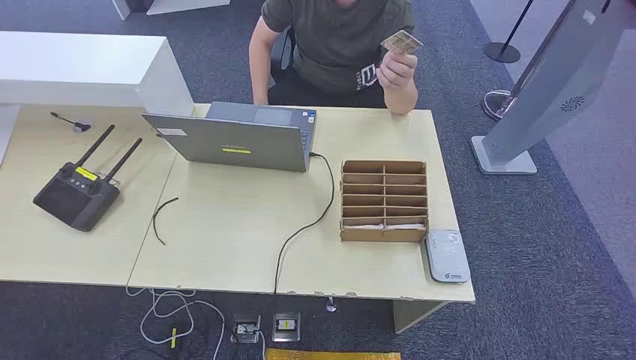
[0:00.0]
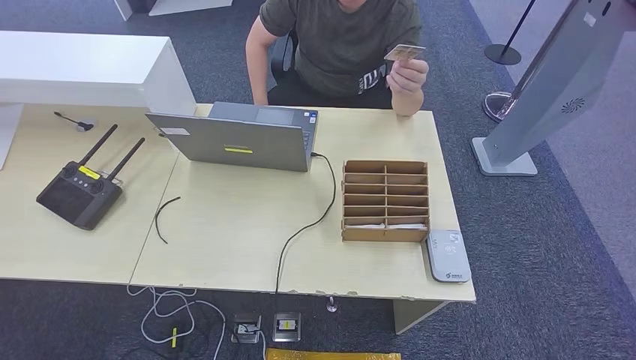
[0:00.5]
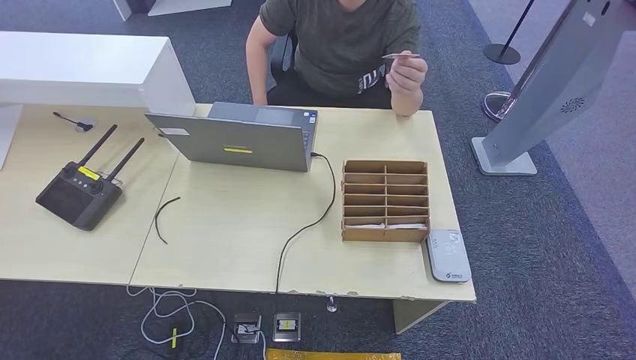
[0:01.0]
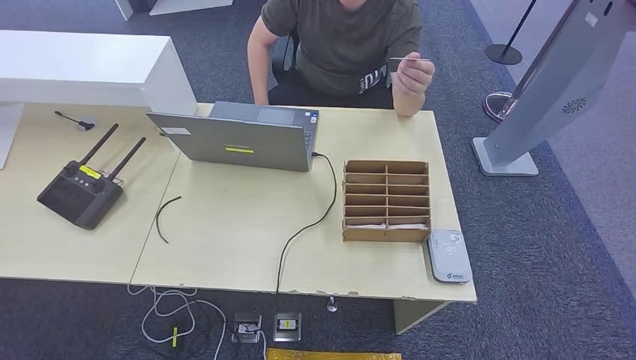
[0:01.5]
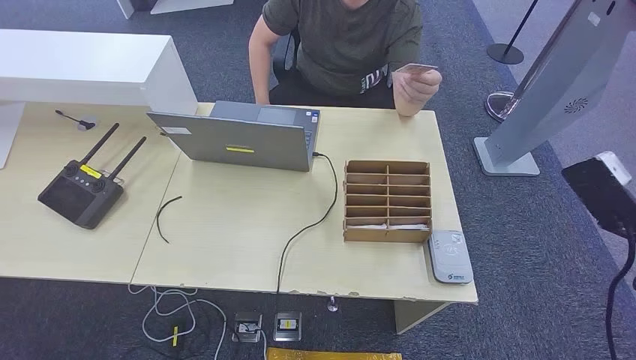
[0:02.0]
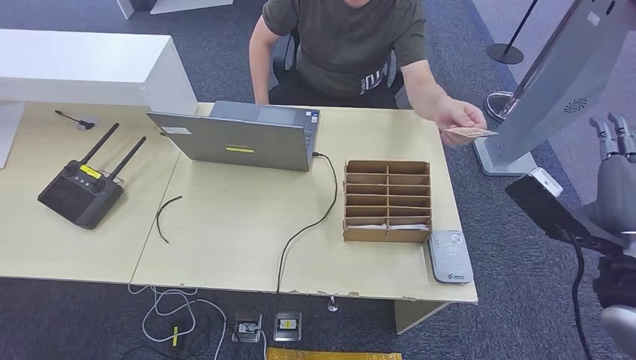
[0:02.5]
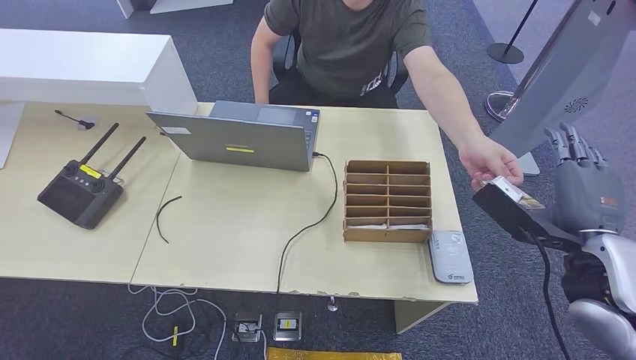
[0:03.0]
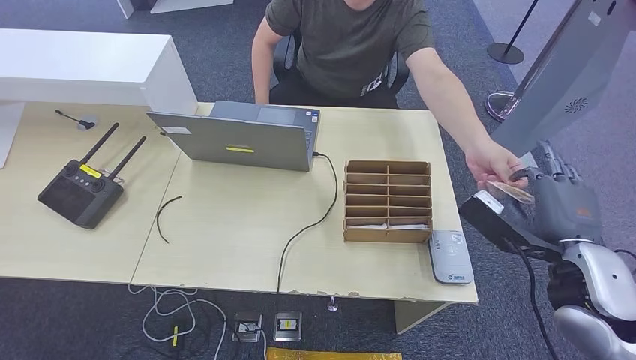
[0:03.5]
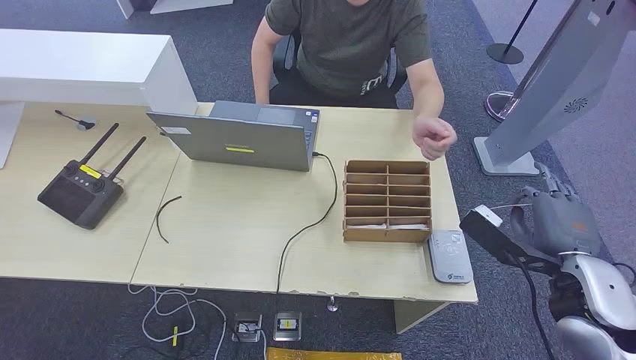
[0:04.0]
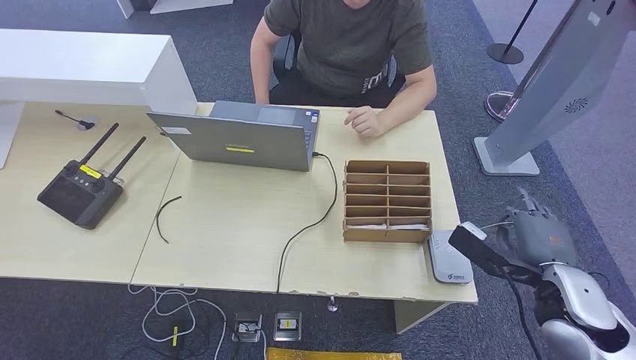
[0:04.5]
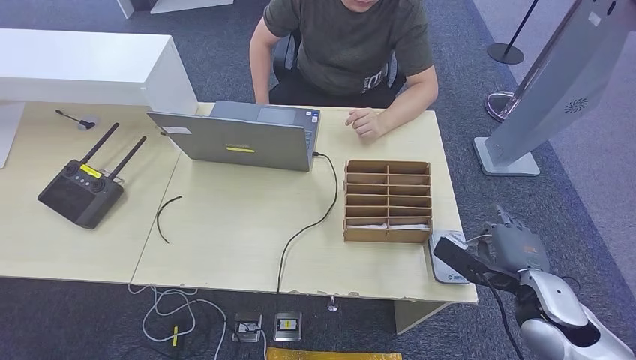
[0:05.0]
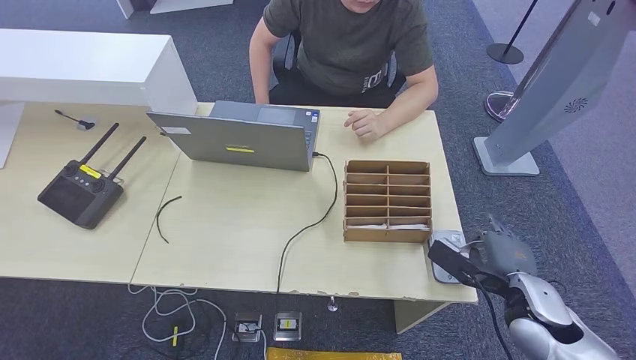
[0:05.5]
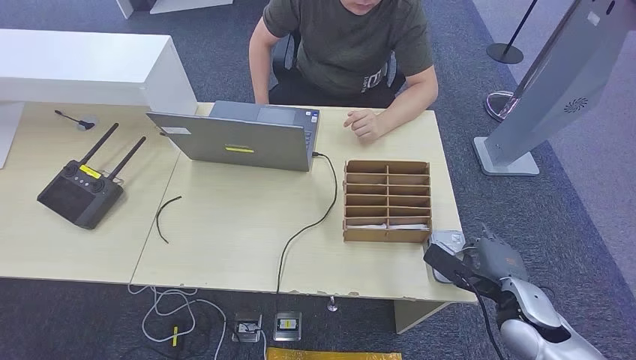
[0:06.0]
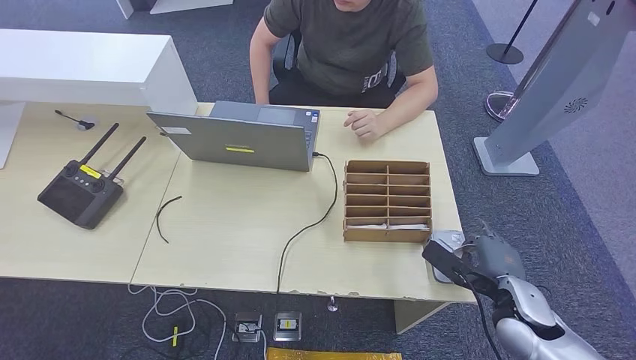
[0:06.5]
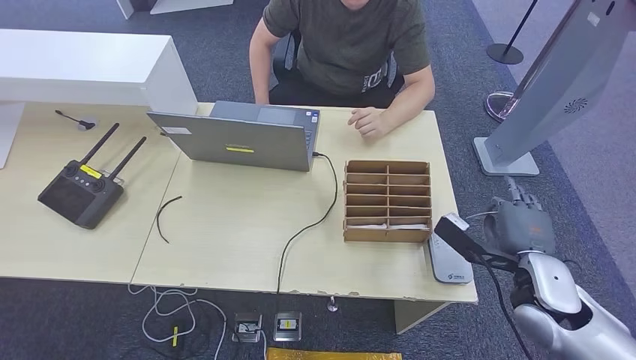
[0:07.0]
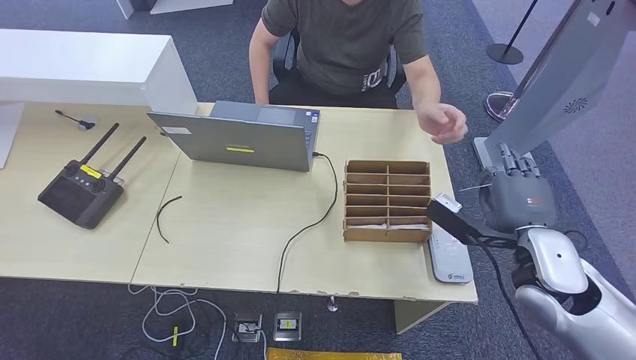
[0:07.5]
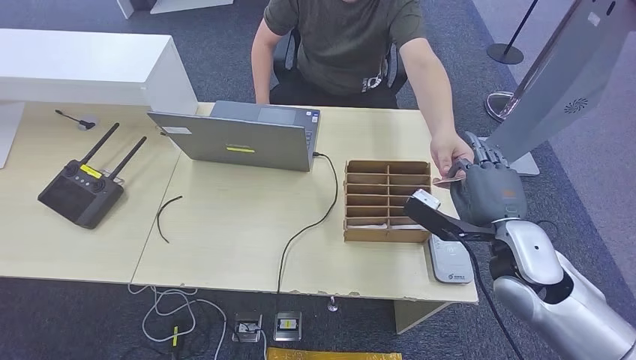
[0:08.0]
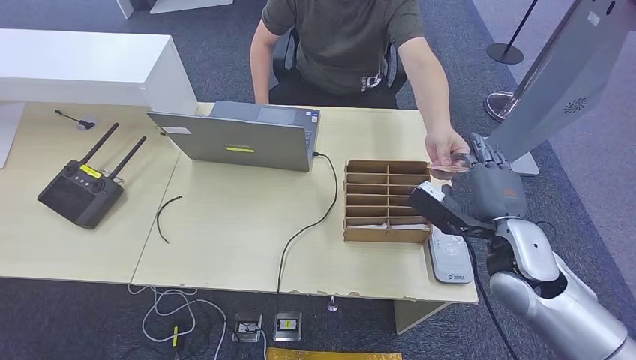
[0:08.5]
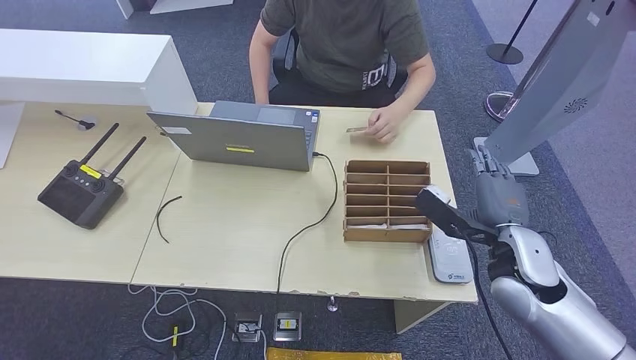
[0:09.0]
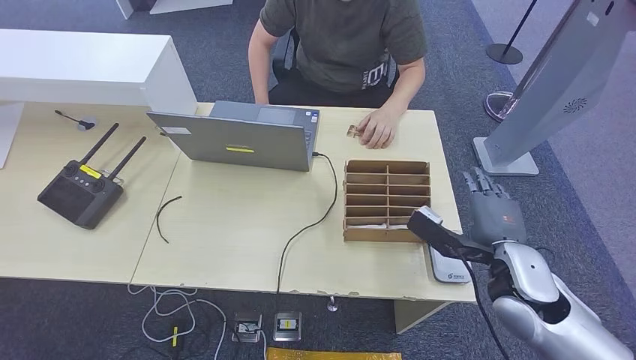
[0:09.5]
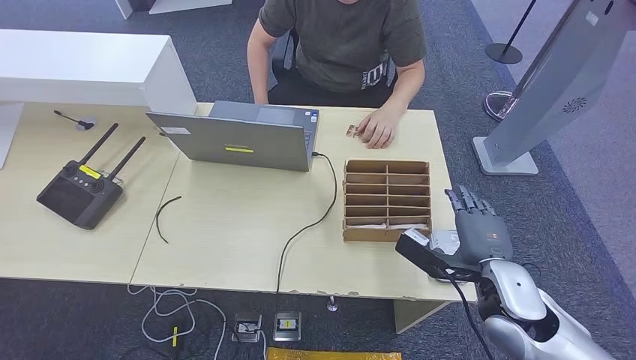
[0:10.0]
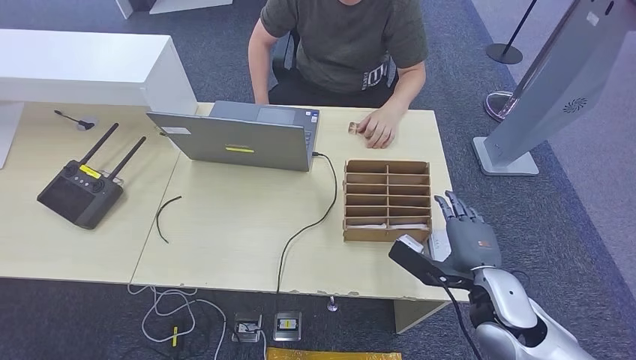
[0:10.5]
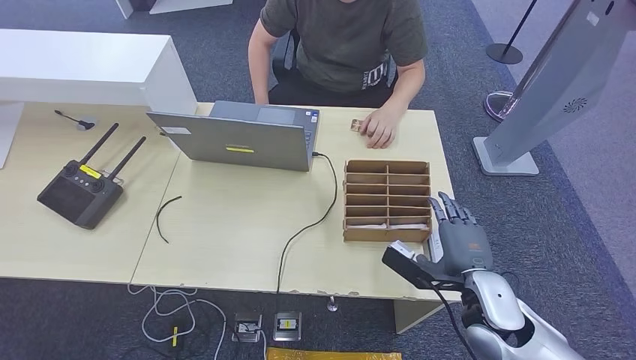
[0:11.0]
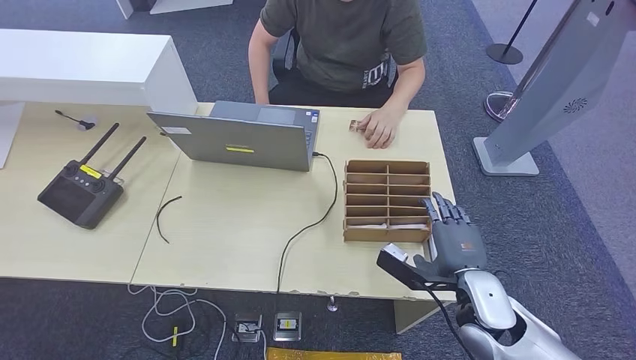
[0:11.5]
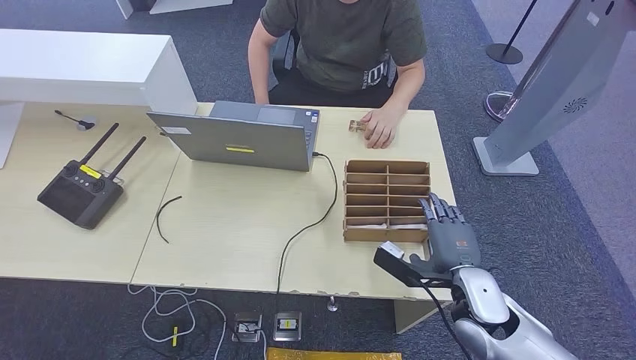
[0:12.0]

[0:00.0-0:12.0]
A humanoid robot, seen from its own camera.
Step, 0:00.0 to 0:03.5: Take the ID card from the person's hand.
Step, 0:04.0 to 0:05.5: Place the ID card on the card reader.
Step, 0:06.0 to 0:09.0: Hand the ID card to the person.
0:02.0 to 0:04.0: The right hand moves downward and to the left, some 10 cm.
0:04.0 to 0:06.0: The right hand is displaced downward by about 10 cm.
0:06.0 to 0:08.0: The right hand heads upward and to the left, covering roughly 10 cm.
0:08.0 to 0:10.0: The right hand moves some 5 cm.
0:10.0 to 0:12.0: The right hand shifts by about 5 cm.

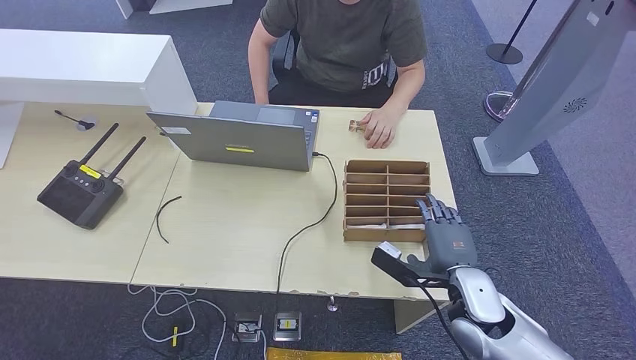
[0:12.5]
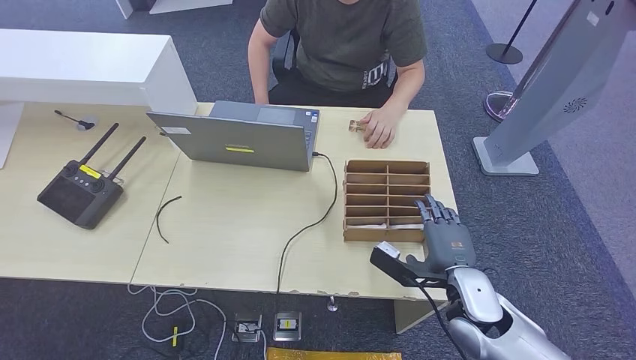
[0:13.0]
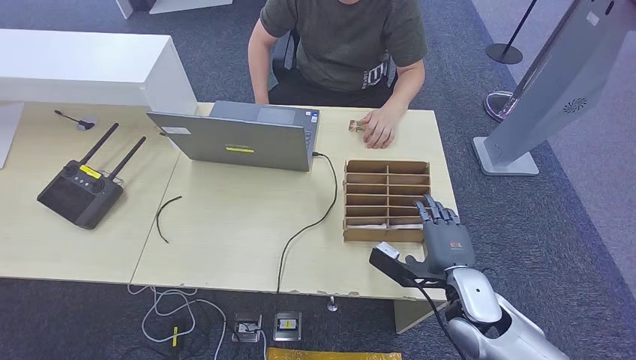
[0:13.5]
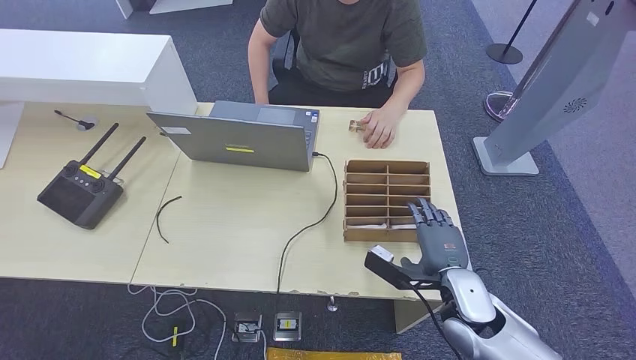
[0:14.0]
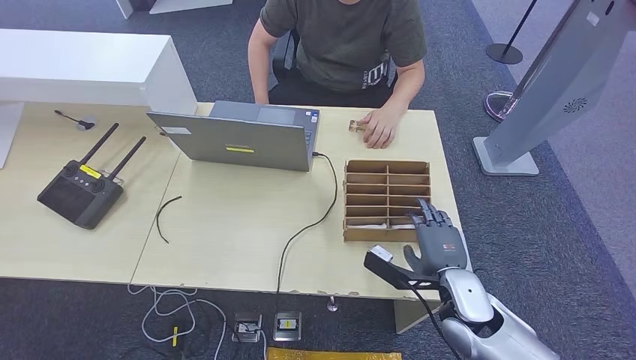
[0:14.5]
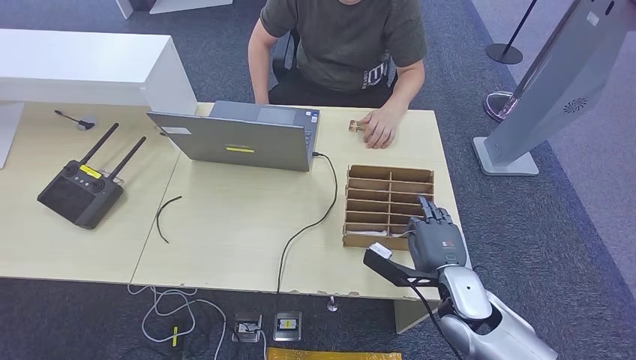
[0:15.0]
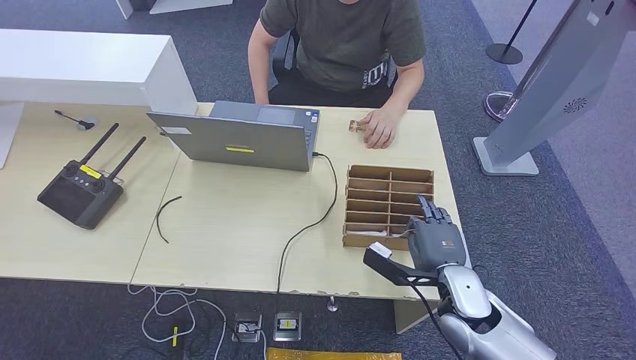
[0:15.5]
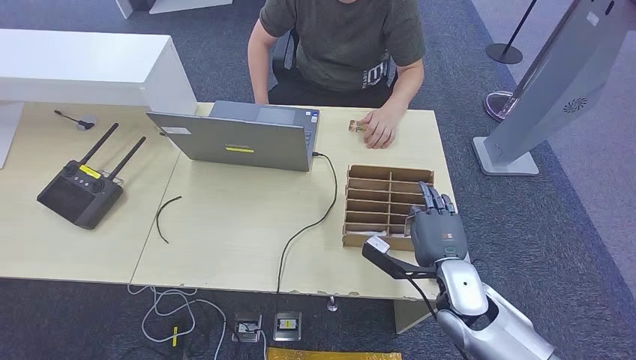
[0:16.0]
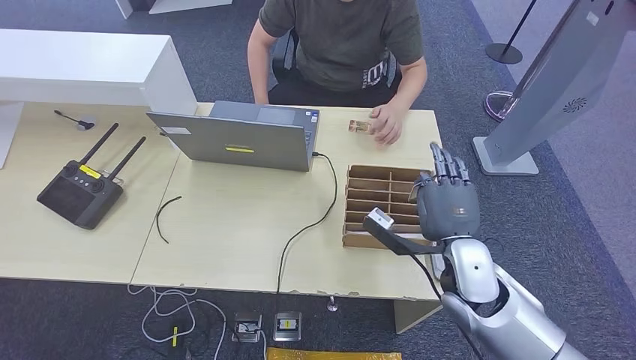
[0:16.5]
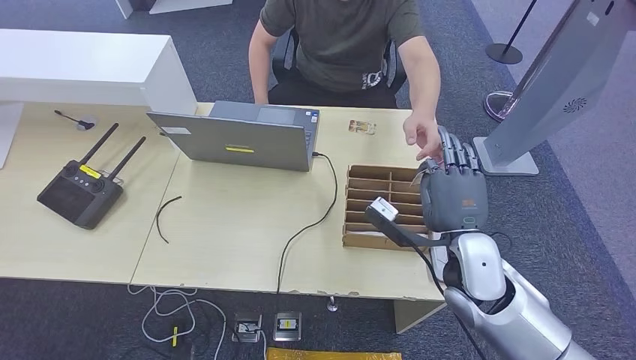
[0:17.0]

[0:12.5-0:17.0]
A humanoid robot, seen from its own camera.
Step, 0:12.5 to 0:16.0: Pick up the room key from the key card box.
Step, 0:16.5 to 0:17.0: Hand the room key to the person.
0:12.5 to 0:14.5: The hands stay close to where they were, moving slightly.
0:14.5 to 0:17.0: The right hand shifts roughly 10 cm upward.
